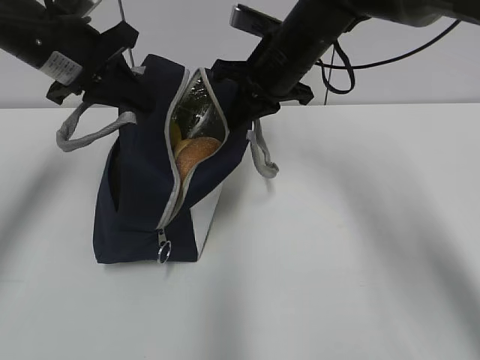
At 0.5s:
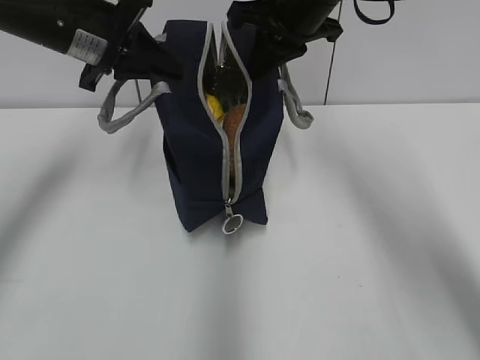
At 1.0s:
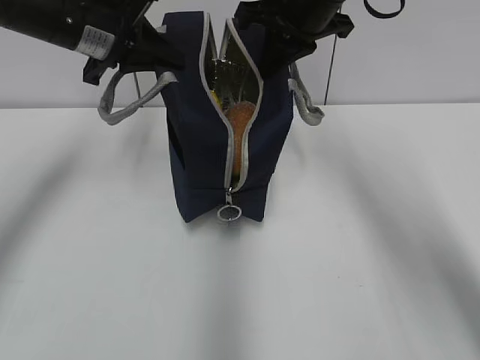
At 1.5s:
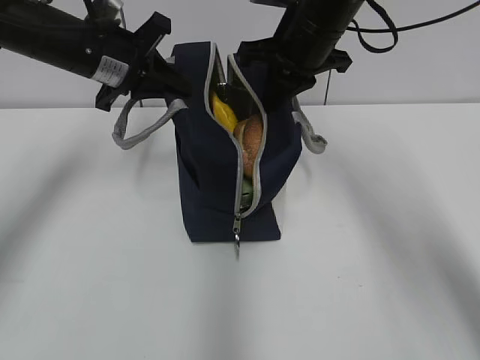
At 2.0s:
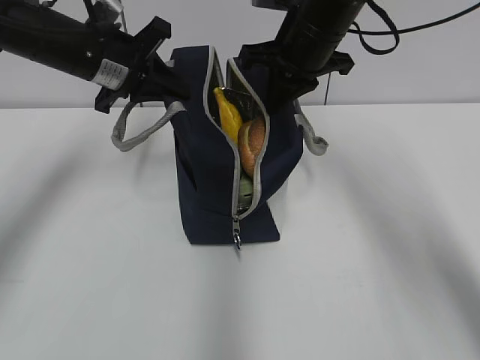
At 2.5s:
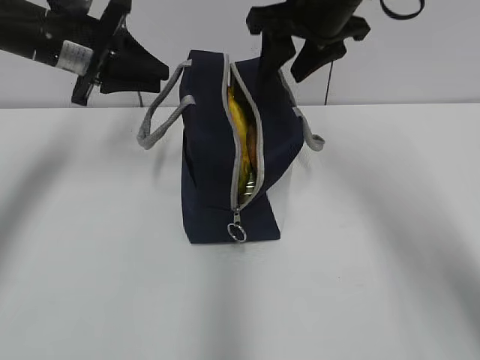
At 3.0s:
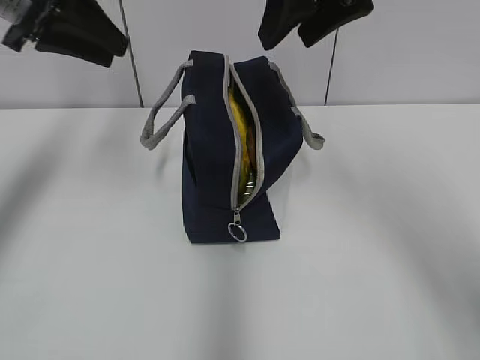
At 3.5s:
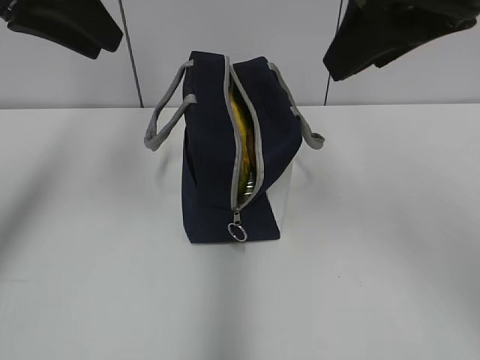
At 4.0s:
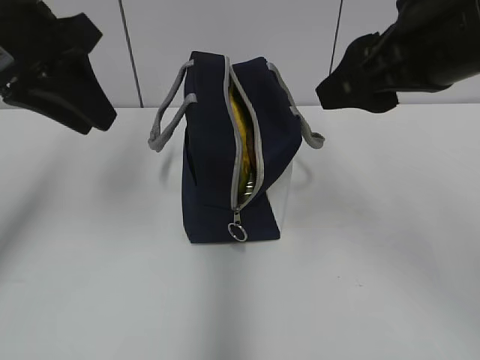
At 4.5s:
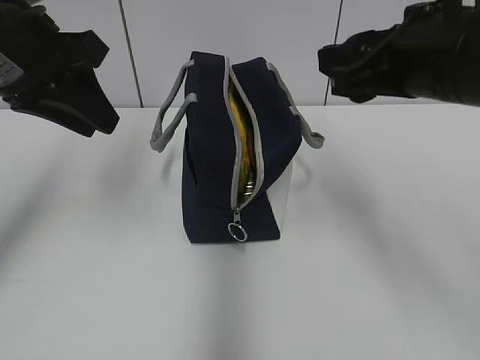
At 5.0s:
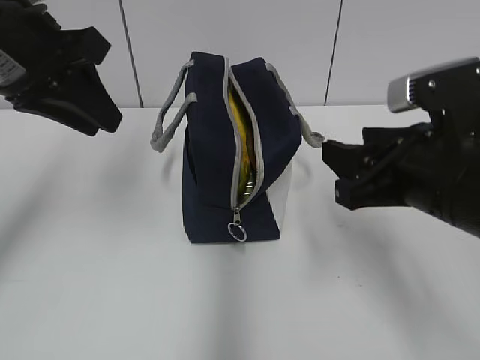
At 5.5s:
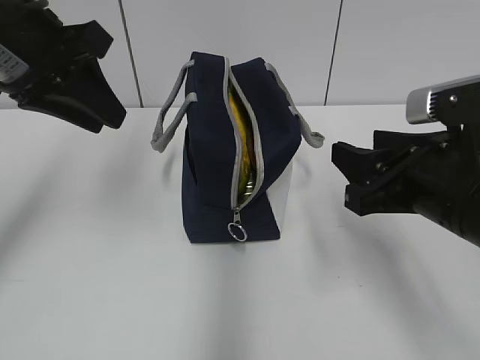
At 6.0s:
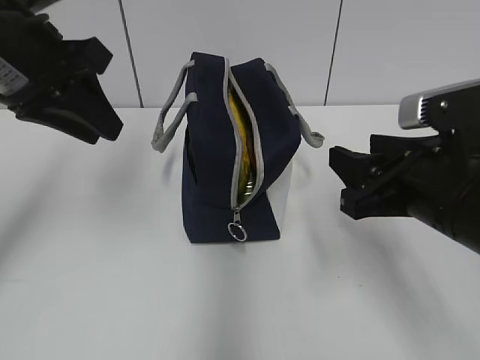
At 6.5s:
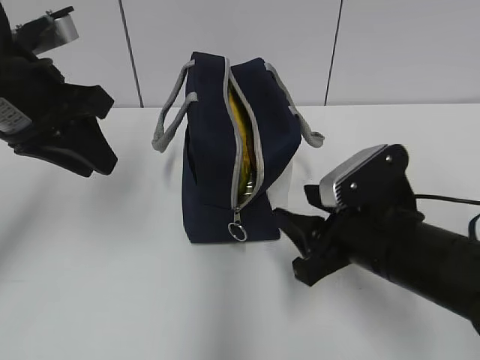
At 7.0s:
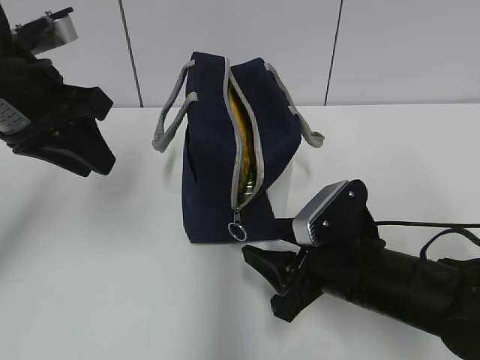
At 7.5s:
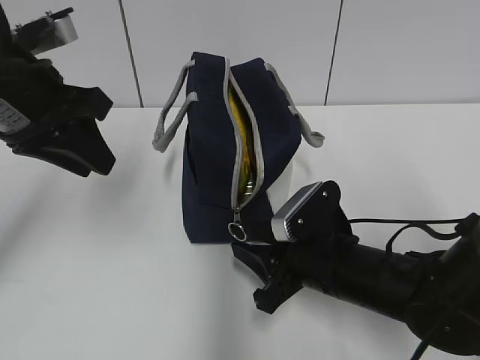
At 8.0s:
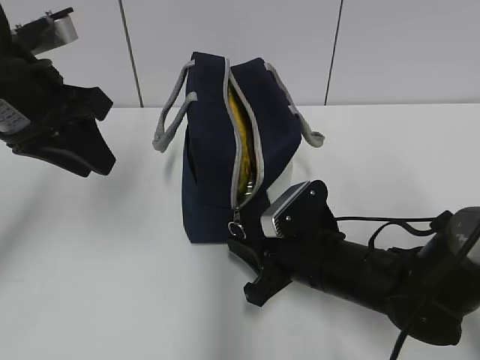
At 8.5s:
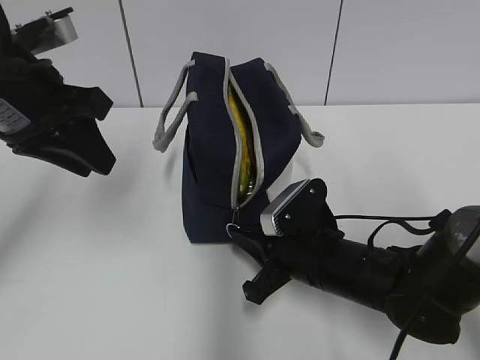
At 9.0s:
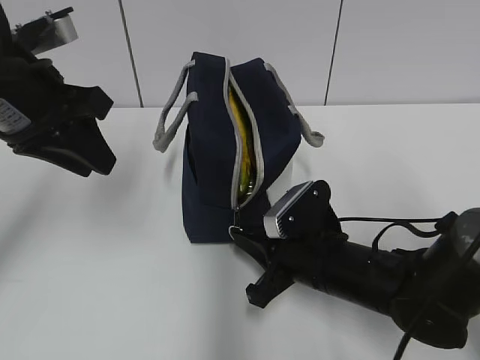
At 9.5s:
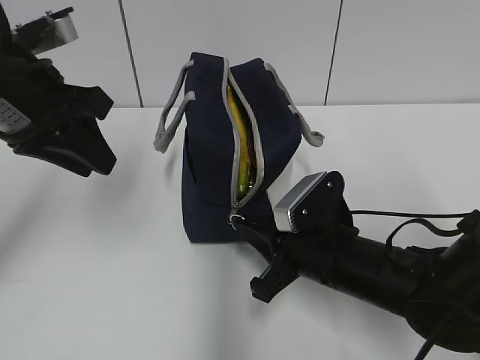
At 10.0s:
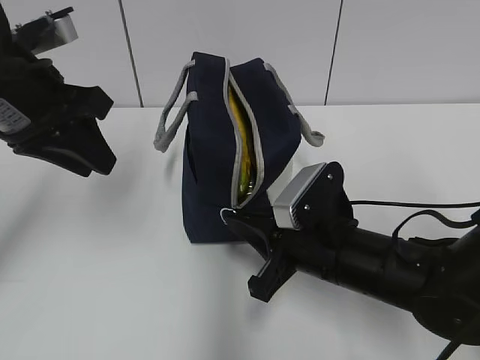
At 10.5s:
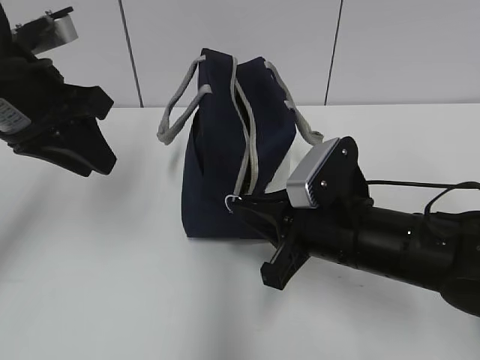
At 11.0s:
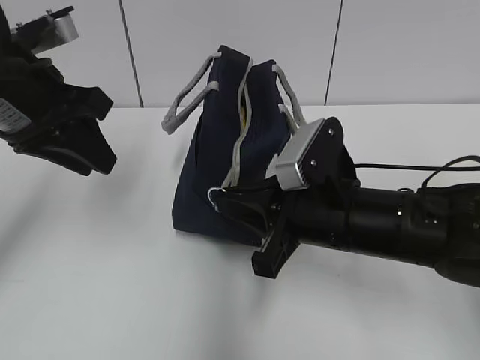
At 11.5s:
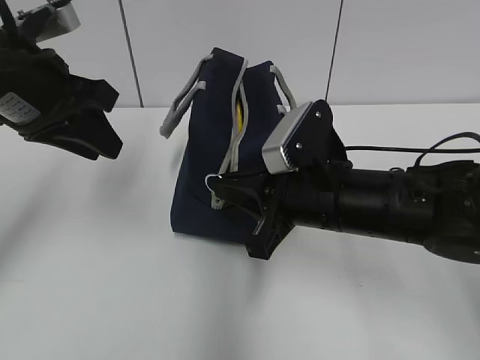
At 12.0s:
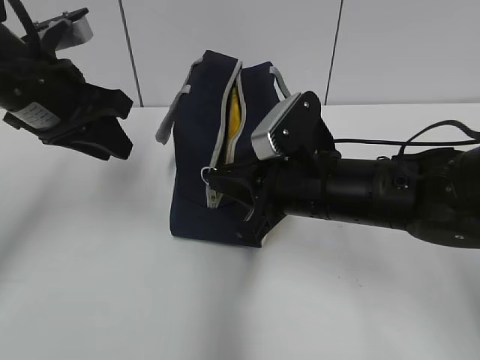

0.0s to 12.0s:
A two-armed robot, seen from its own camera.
Step, 0.0s to 2.0s: Move the lunch bag to the right.
2.0s to 4.0s: The left gripper shifts roughly 15 cm backward and upward, and opens its fingers. The right gripper moves backward, approximately 20 cm, and opens.
4.0s to 6.0s: The right gripper travels downward by approximately 15 cm.
6.0s to 8.0s: The right gripper shifts approximately 15 cm downward and to the left, and closes its fingers.
8.0s to 10.0s: The right gripper closes its fingers.
10.0s to 12.0s: The right gripper goes approximately 5 cm upward.

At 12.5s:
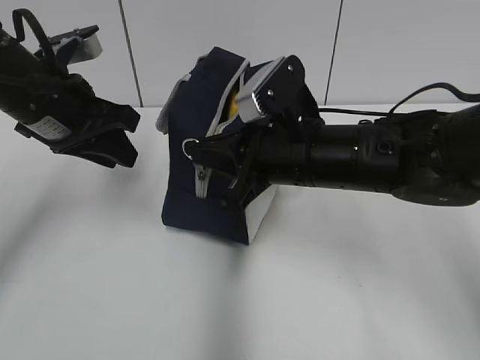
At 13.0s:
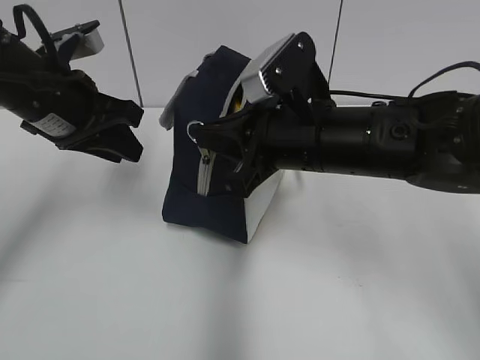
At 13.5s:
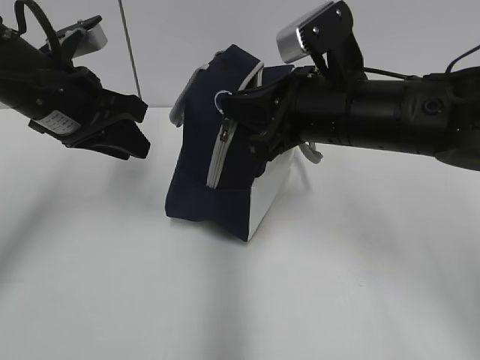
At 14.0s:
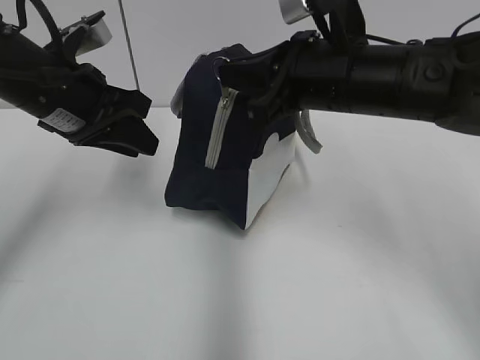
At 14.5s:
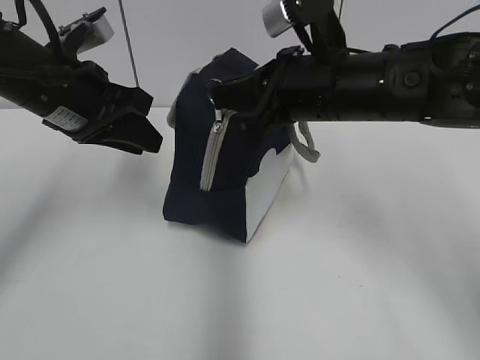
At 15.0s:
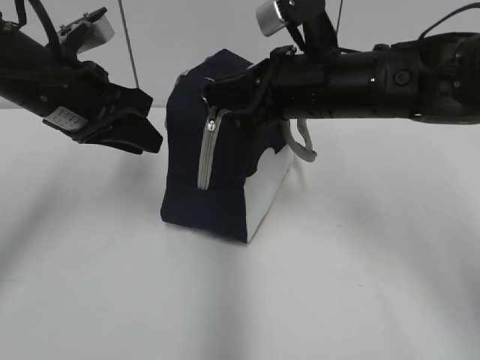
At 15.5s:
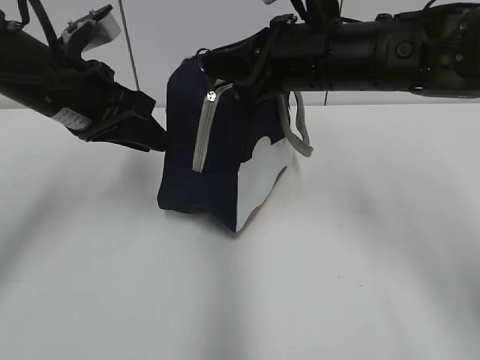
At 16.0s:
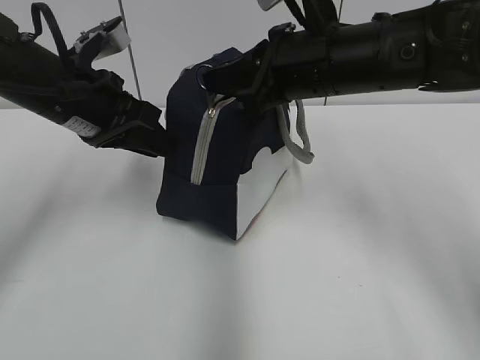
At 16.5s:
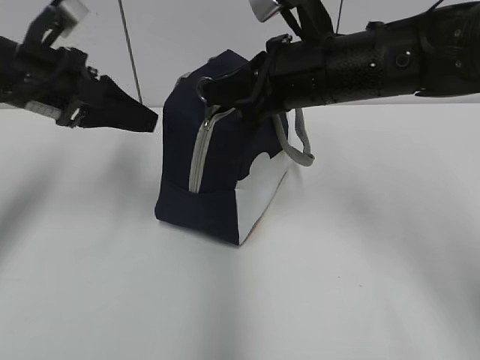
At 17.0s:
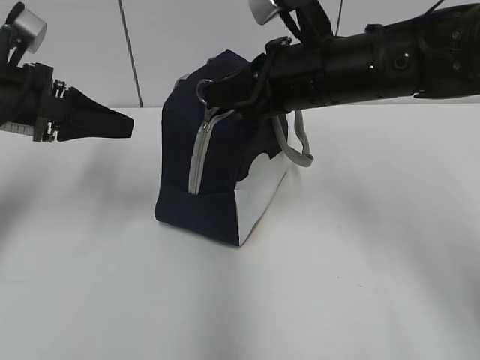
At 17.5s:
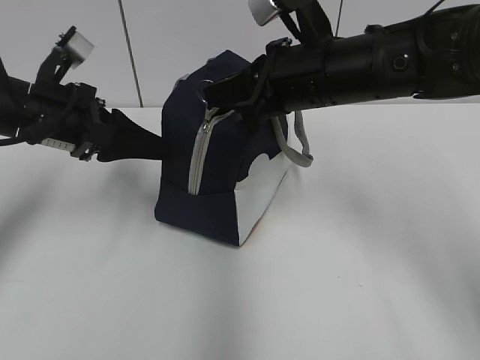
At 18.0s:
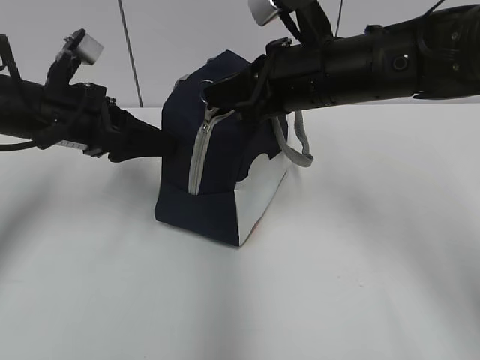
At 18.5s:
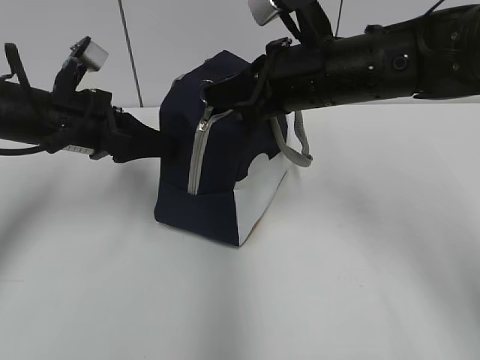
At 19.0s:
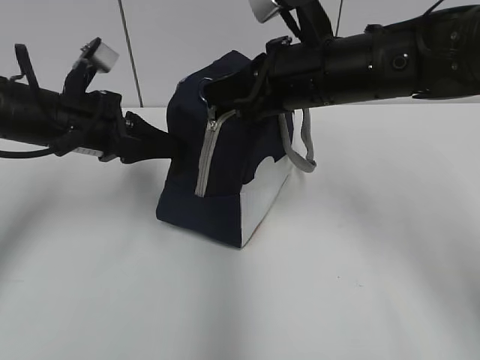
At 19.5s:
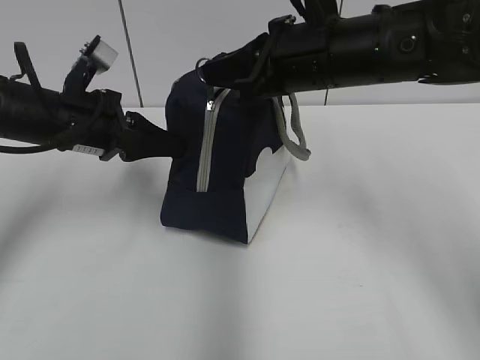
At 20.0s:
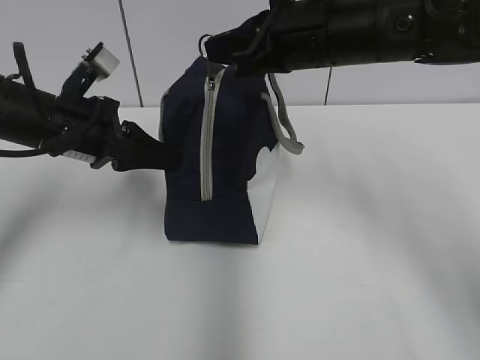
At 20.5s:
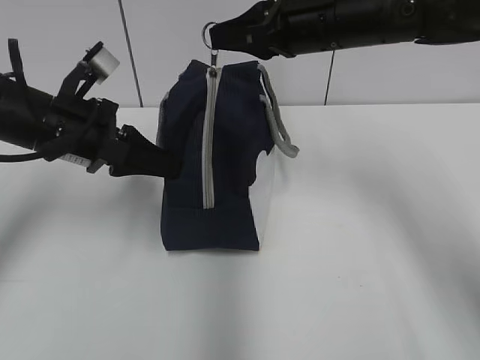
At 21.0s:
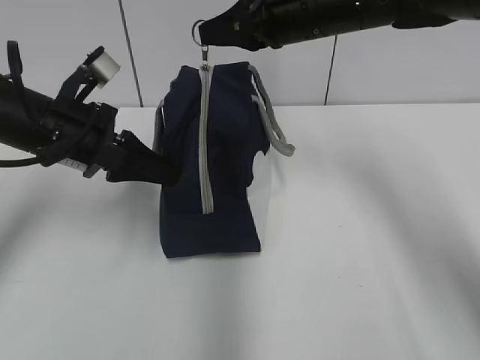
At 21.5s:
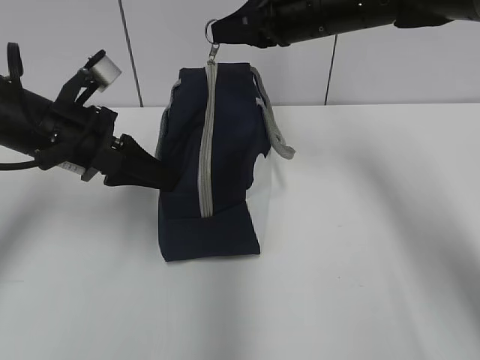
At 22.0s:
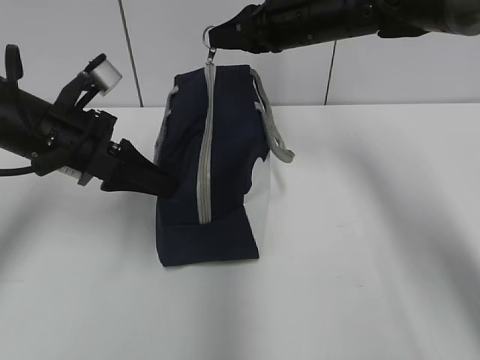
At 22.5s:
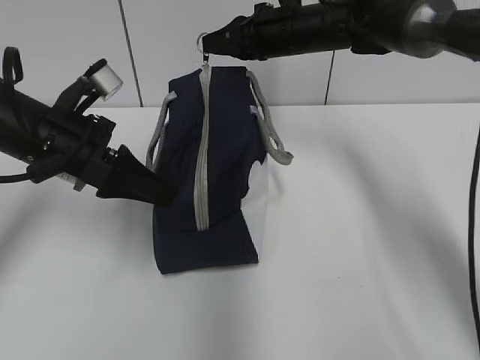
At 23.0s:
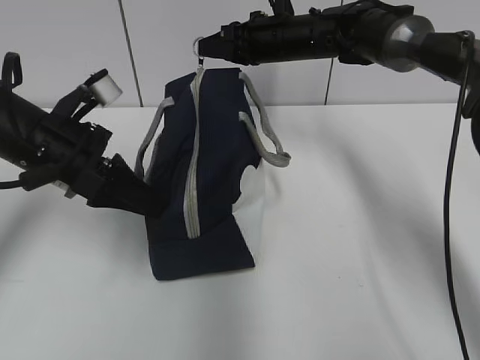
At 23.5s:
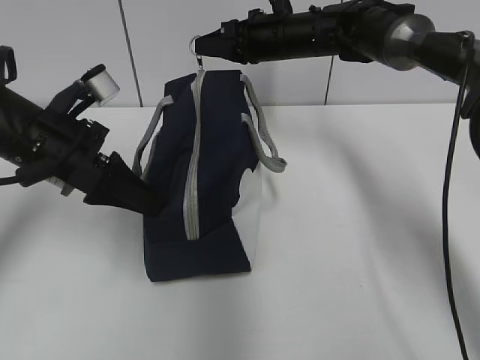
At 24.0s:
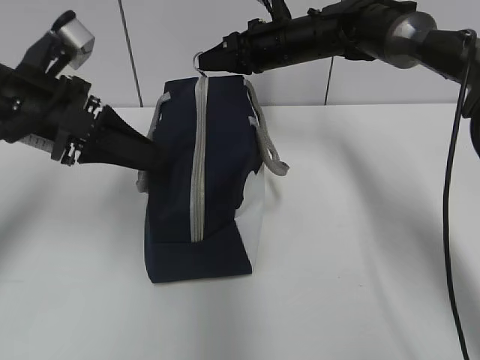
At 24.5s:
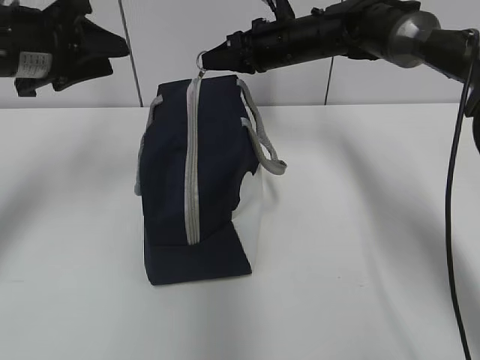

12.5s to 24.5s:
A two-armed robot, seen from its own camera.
Step, 12.5s to 23.5s: Grab the lunch bag with your left hand.
12.5s to 14.5s: The right gripper changes place by approximately 5 cm.
16.5s to 18.5s: The left gripper moves downward, roughly 5 cm, and opens, then closes once more.
18.5s to 20.5s: The left gripper closes its fingers, while the right gripper ends up about 5 cm from where it was.
20.5s to 22.5s: The right gripper heads forward and downward, covering about 15 cm.
22.5s to 24.5s: The left gripper moves upward, about 5 cm, and opens up.

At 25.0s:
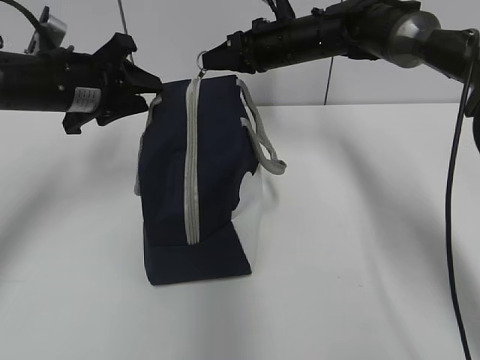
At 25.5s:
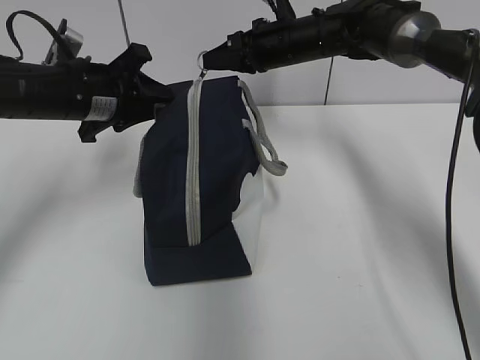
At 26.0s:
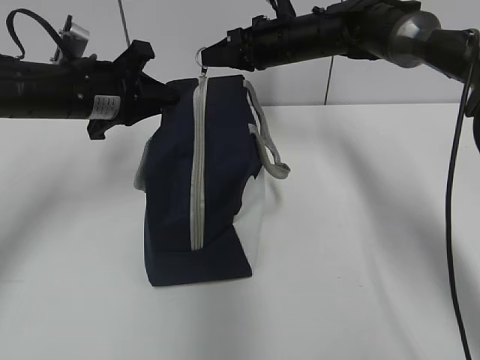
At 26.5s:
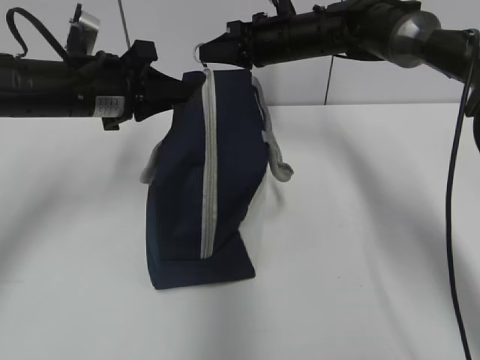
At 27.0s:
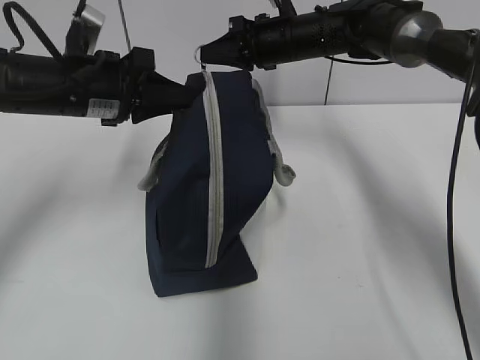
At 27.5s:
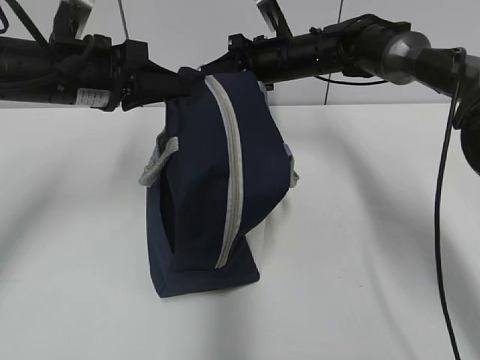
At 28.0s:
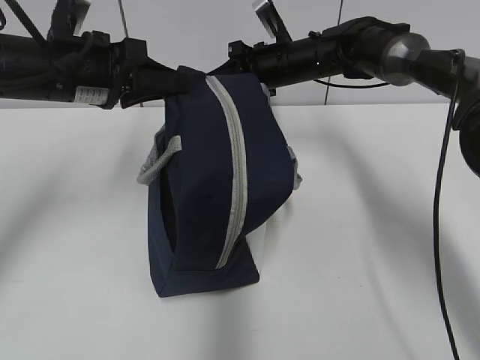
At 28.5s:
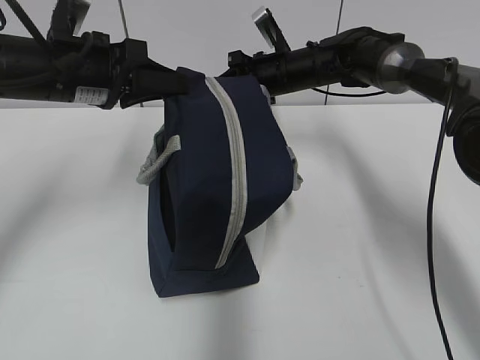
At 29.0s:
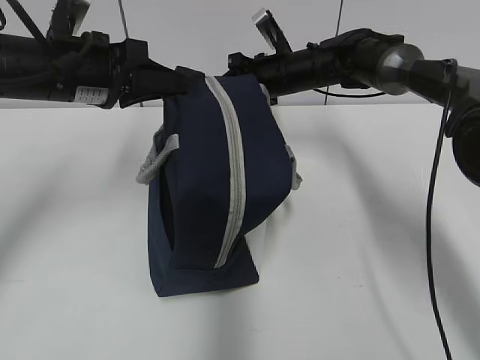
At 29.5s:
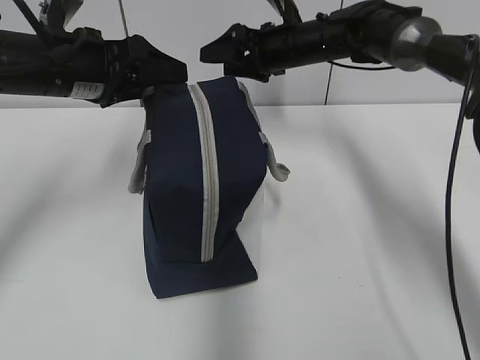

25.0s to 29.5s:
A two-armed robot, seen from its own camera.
Step, 25.0s to 29.0s: Pull the zipper with your right hand.
25.0s to 27.0s: The left gripper closes its fingers.
27.0s to 29.5s: The right gripper opens its fingers, while the left gripper opens up.
